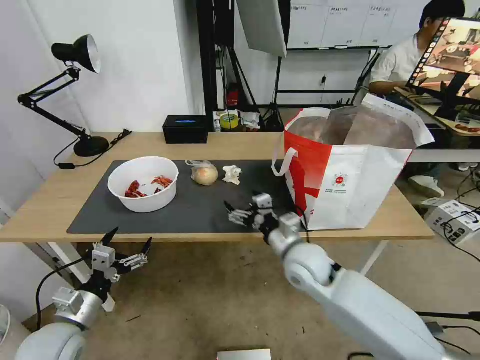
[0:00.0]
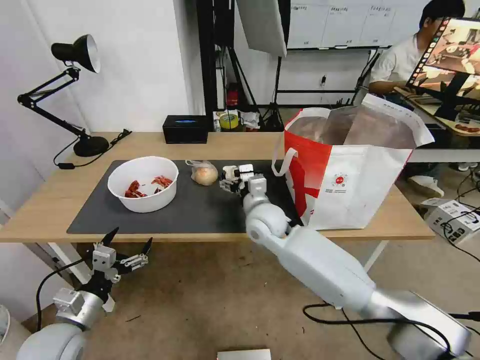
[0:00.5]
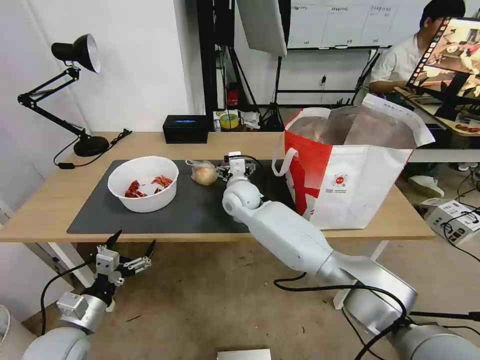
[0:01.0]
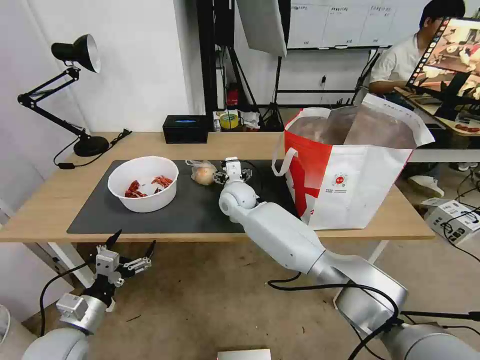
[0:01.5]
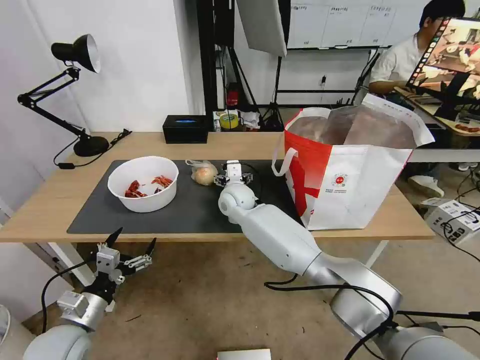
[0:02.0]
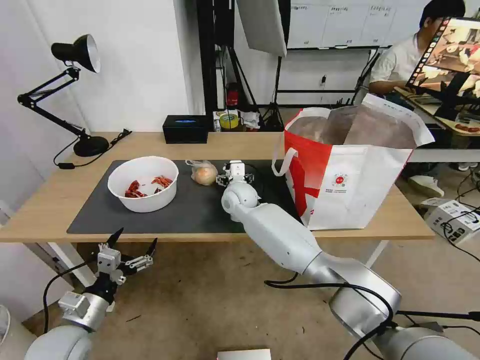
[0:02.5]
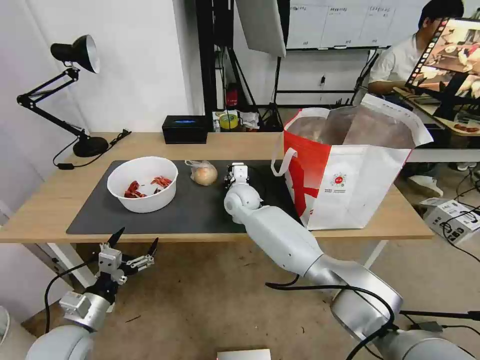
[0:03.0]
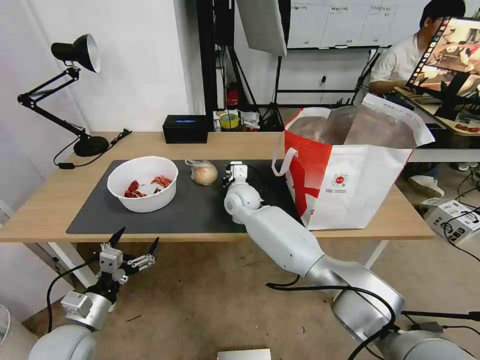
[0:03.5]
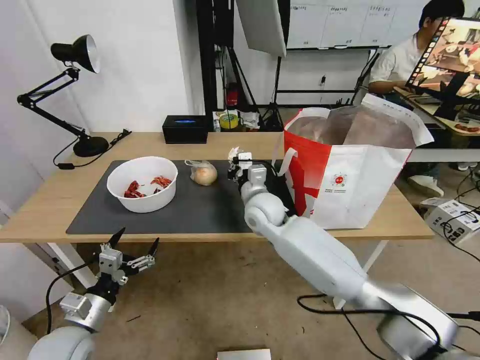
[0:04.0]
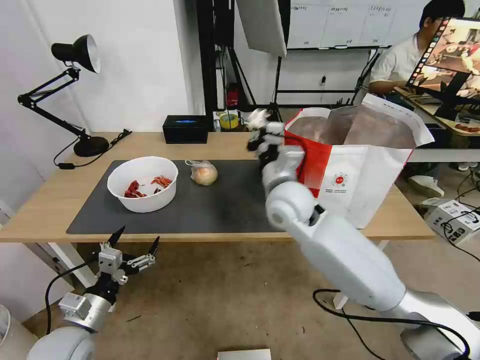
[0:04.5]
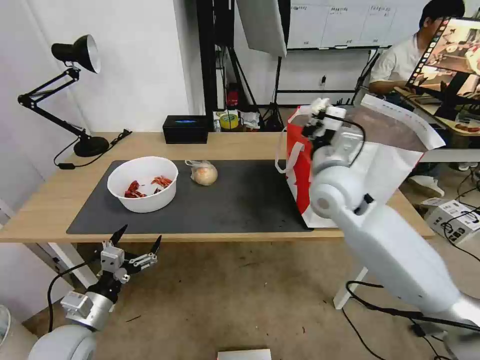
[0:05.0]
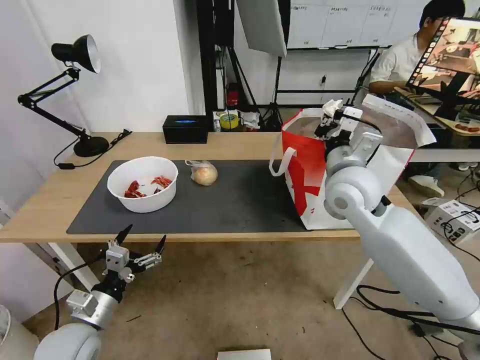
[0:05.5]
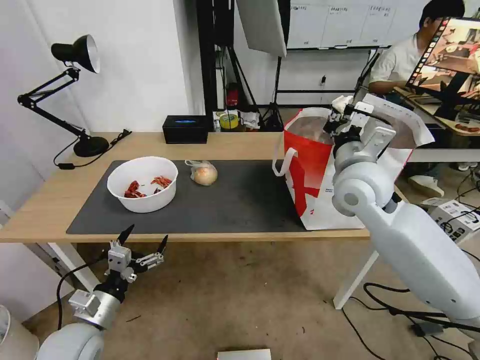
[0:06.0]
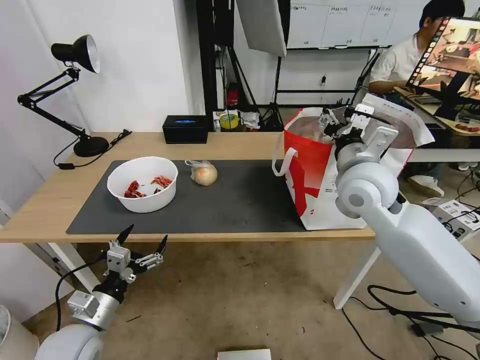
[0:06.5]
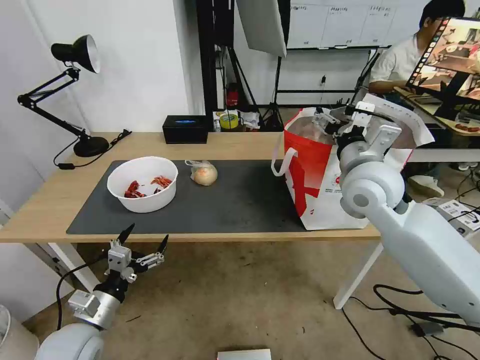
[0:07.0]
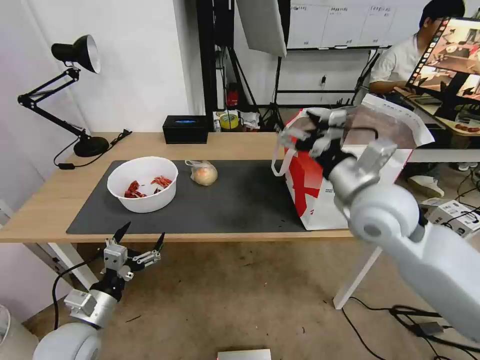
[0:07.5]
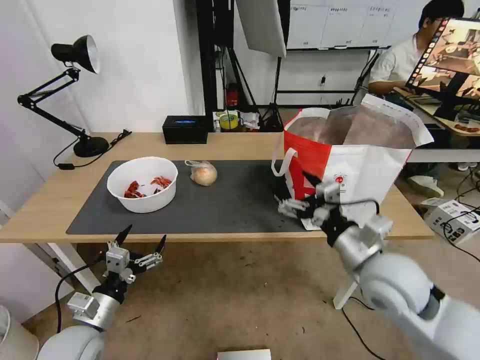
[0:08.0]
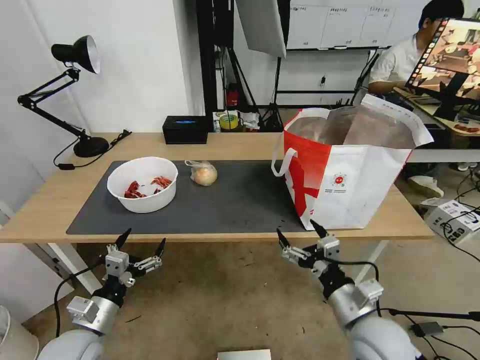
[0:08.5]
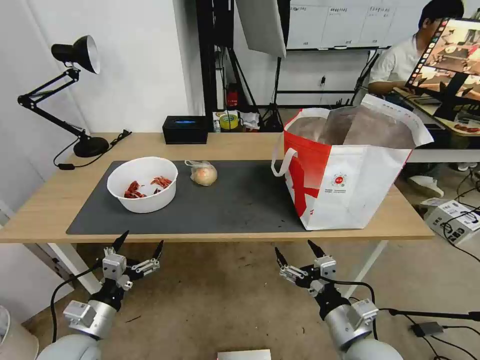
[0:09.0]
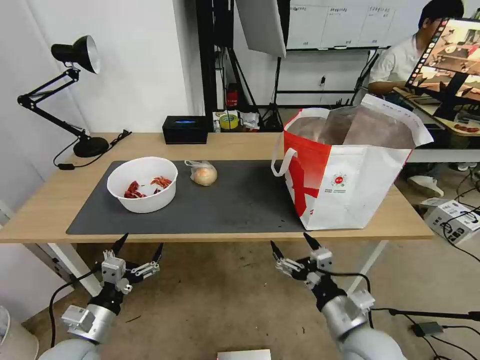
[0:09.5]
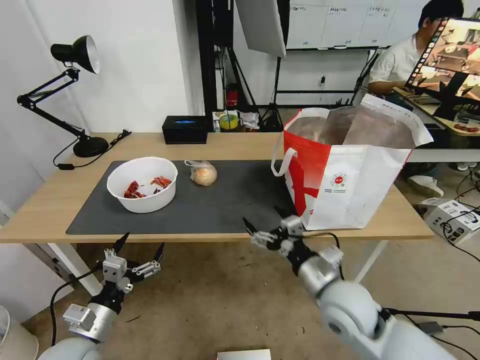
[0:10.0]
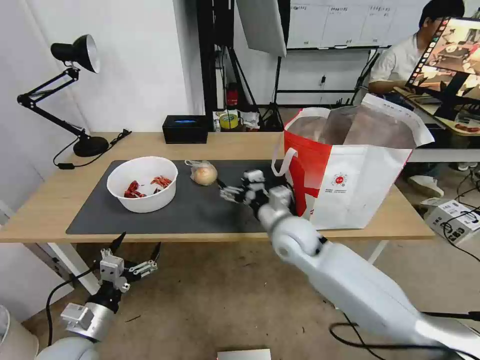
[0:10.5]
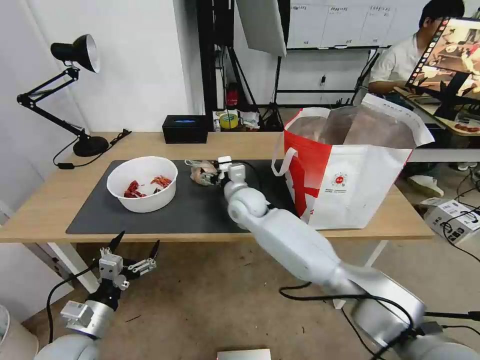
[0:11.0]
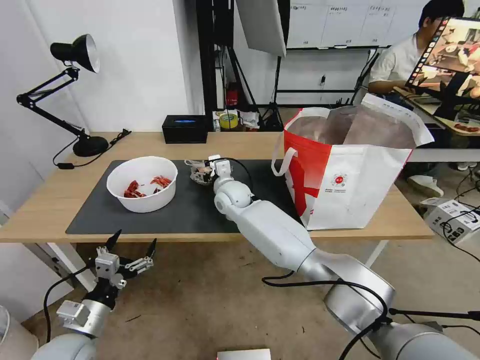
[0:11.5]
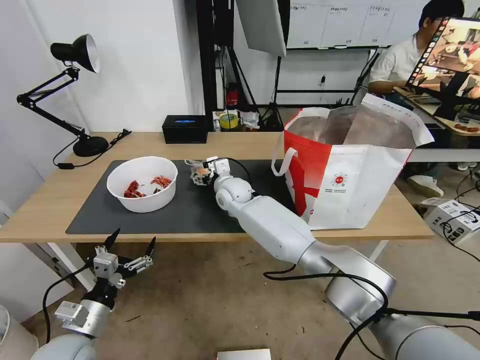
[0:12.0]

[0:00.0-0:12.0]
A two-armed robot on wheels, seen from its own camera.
Task of the whole recording: Pick up the trash from the table and place it into the takeout bag.
0:00.0 to 0:02.0: The right gripper shifts approximately 20 cm forward and to the left.
0:02.0 to 0:04.0: The right gripper moves backward and to the right, about 10 cm, and closes up.
0:04.0 to 0:06.0: The right gripper goes roughly 20 cm to the right and upward.
0:06.0 to 0:08.0: The right gripper goes some 15 cm backward and downward, and opens.
0:08.0 to 0:10.0: The right gripper is displaced downward and to the left by about 10 cm.
0:10.0 to 0:12.0: The right gripper moves forward and to the left, about 35 cm.

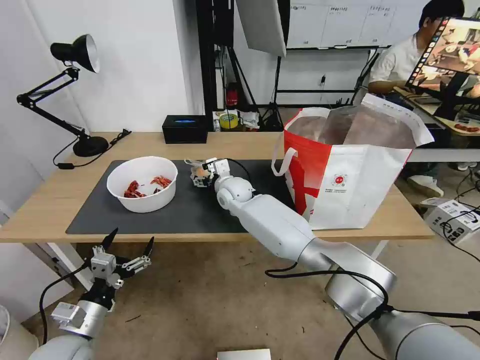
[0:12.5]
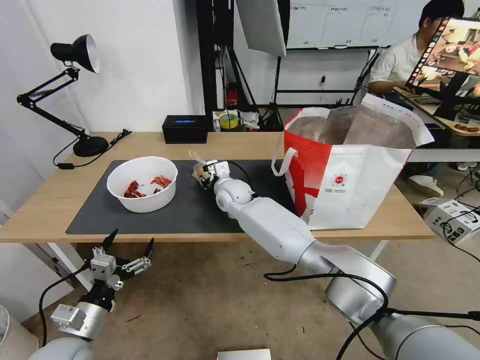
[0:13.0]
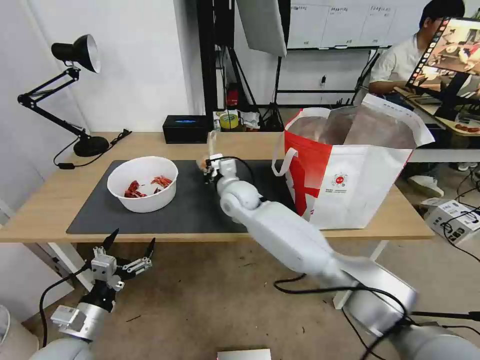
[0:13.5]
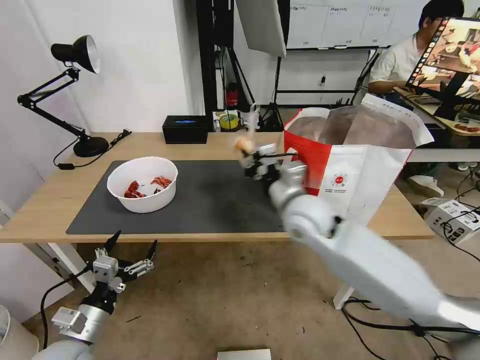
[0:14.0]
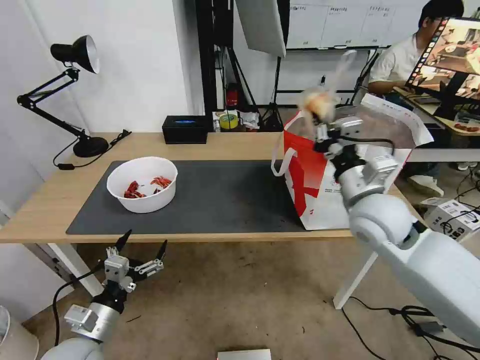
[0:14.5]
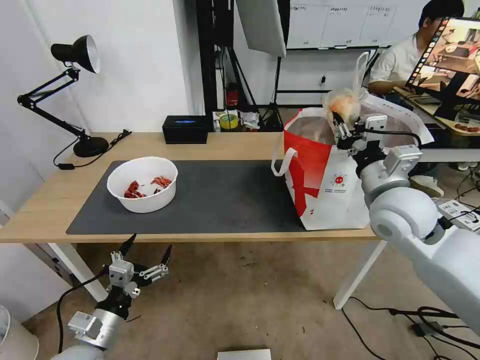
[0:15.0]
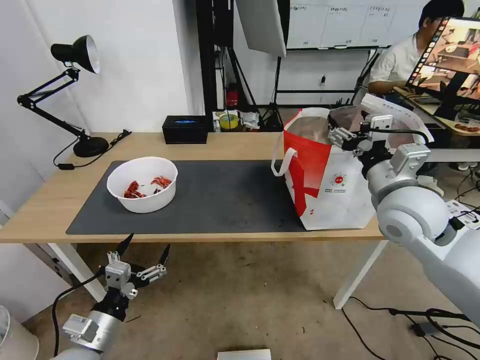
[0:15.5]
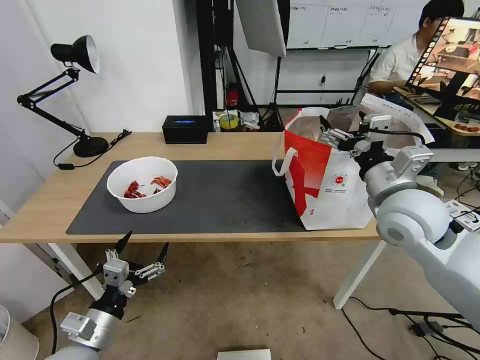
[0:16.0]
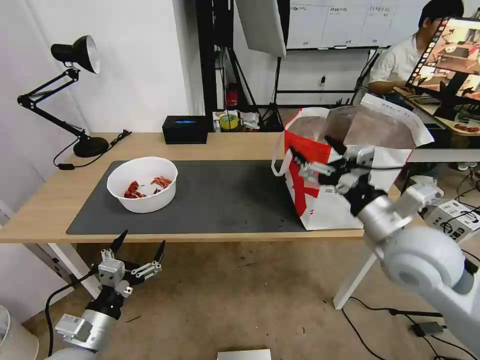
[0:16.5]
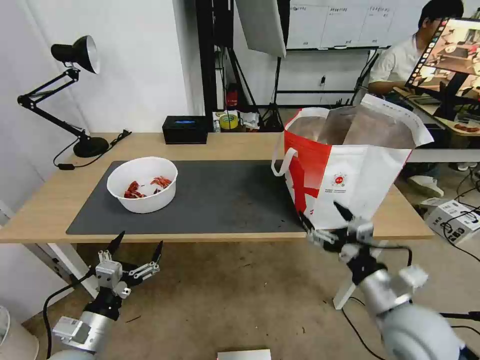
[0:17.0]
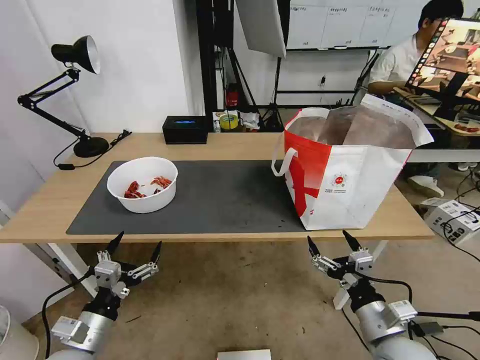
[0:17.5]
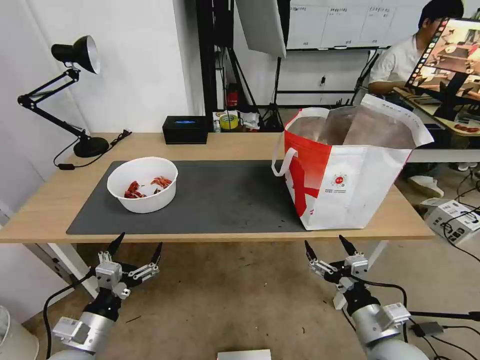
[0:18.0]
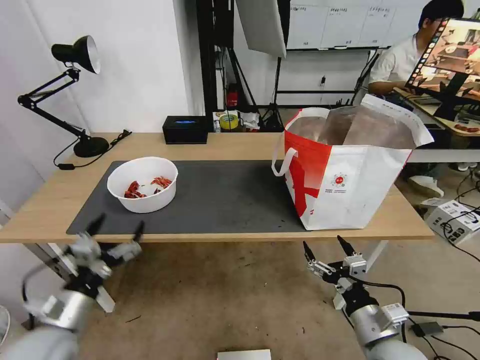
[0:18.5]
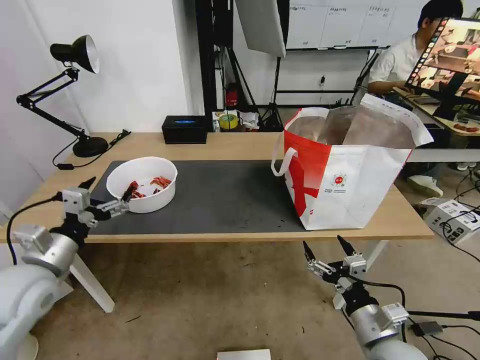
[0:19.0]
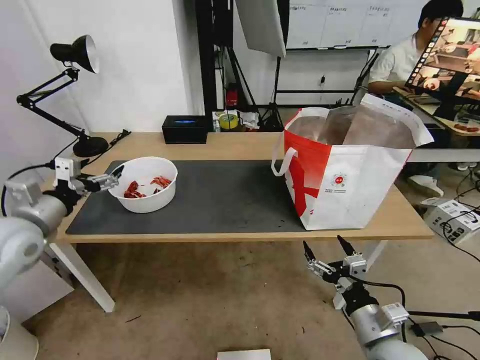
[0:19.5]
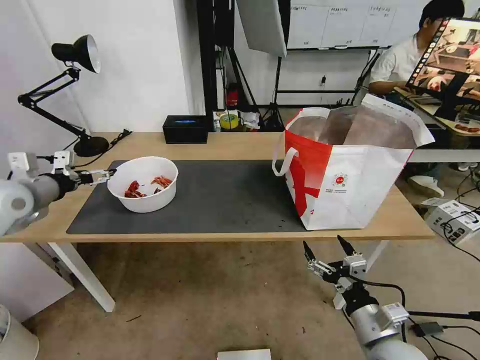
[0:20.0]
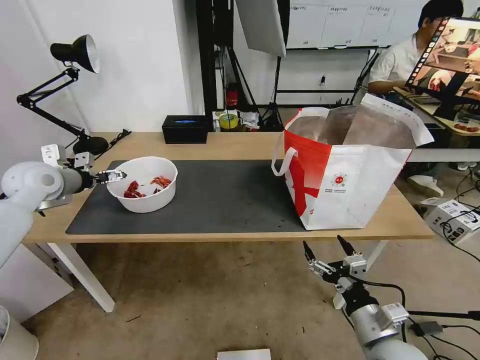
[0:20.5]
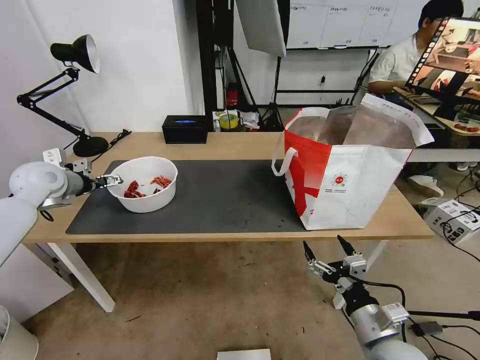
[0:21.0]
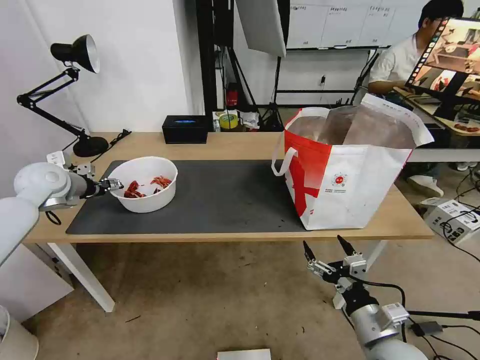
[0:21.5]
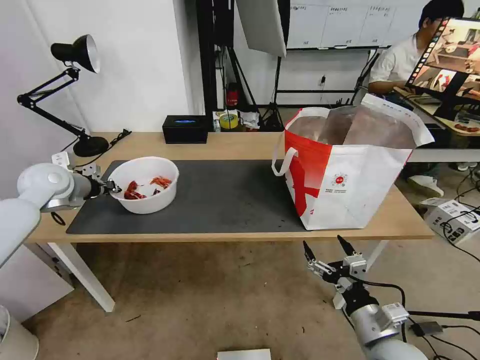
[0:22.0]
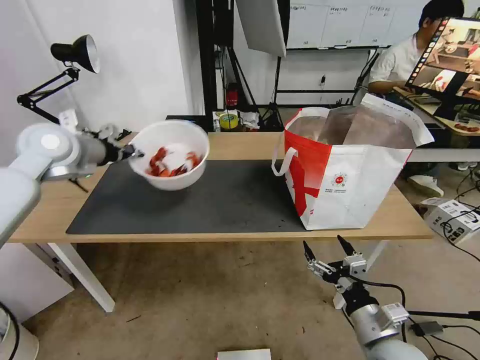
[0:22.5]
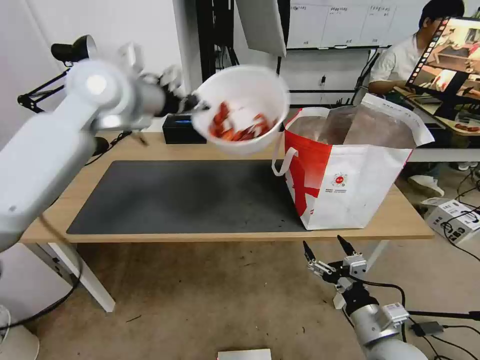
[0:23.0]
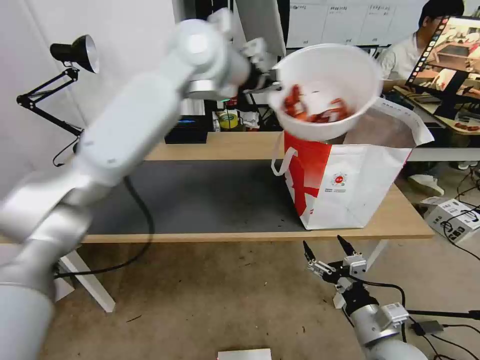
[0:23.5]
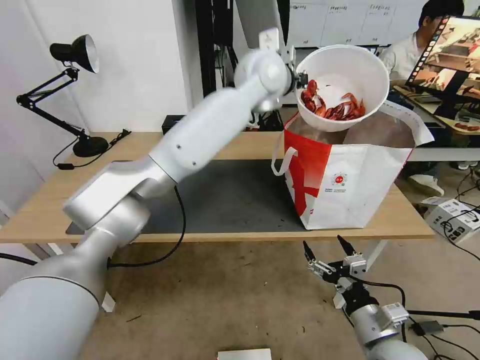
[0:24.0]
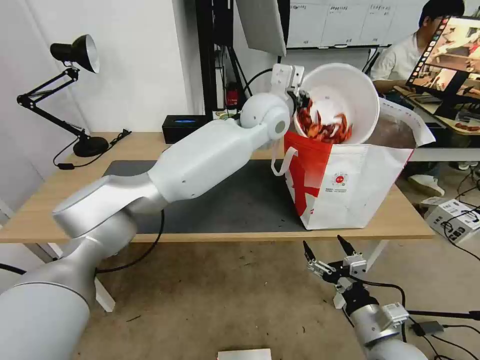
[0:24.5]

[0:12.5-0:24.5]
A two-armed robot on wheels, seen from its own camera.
Task of the whole recording: Pick up the trash from the table and place it into the takeout bag.
0:12.5 to 0:14.5: The right gripper travels to the right, backward and upward by some 35 cm, and closes up.
0:14.5 to 0:16.5: The right gripper moves backward, approximately 10 cm, and opens up.
0:16.5 to 0:18.5: The right gripper moves downward and backward, some 20 cm.
0:18.5 to 0:20.5: The left gripper goes some 35 cm forward and upward.
0:20.5 to 0:22.5: The left gripper goes some 10 cm upward and to the right, and closes.
0:22.5 to 0:24.5: The left gripper goes approximately 40 cm to the right.

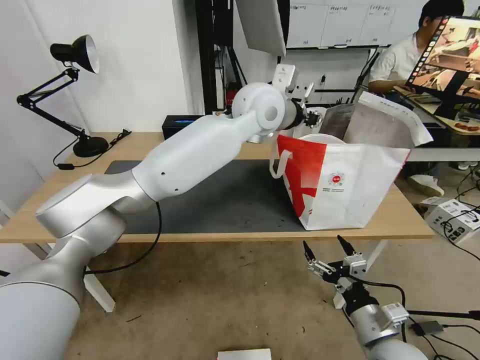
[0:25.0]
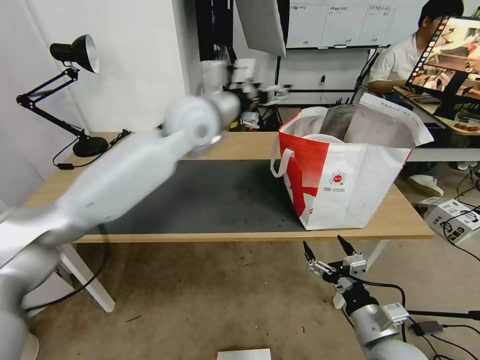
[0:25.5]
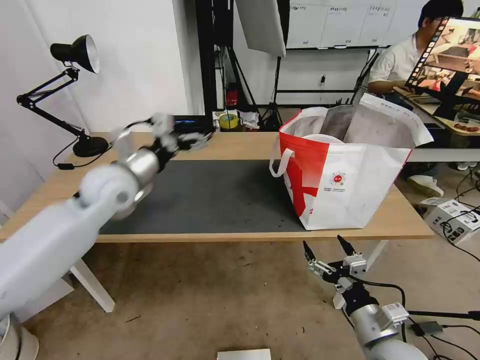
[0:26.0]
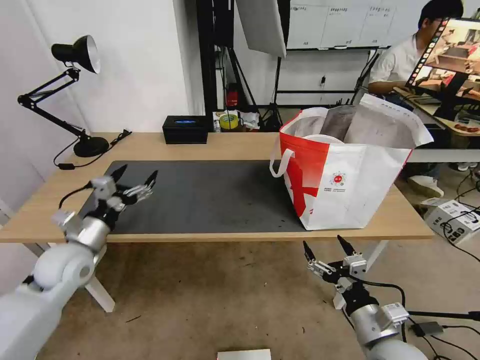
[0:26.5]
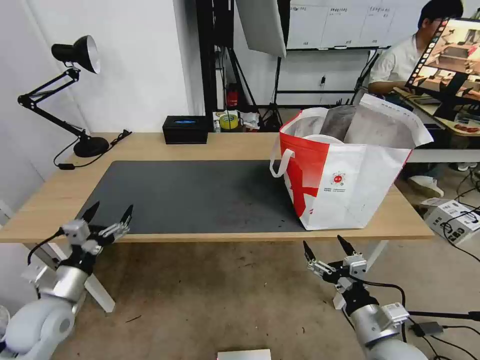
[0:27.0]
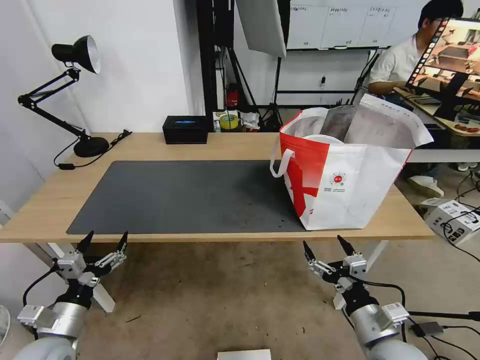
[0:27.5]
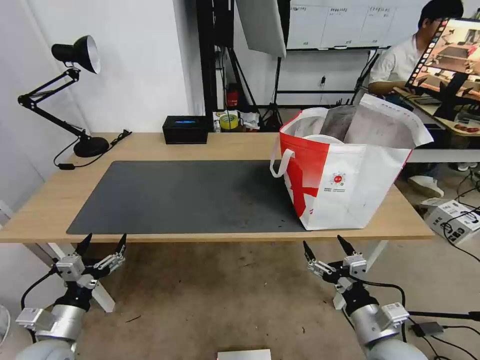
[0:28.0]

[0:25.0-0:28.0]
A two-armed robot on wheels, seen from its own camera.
Task of the whole recording: Pick up the trash from the table and place it into the takeout bag.
0:25.0 to 0:26.5: The left gripper heads to the left, downward and backward, covering roughly 50 cm, and opens.
0:26.5 to 0:28.0: The left gripper travels backward and downward by about 20 cm.
